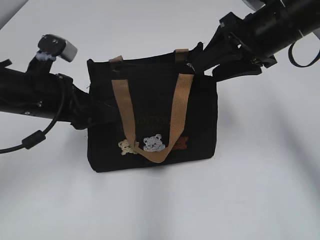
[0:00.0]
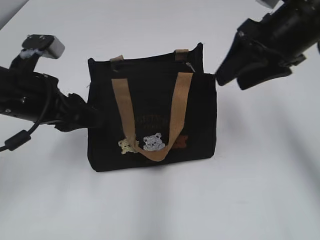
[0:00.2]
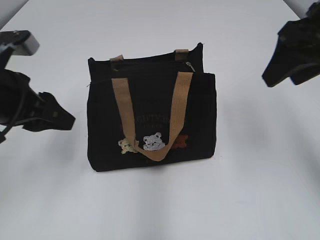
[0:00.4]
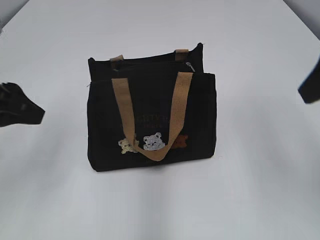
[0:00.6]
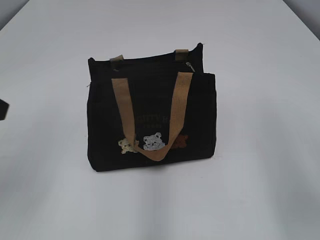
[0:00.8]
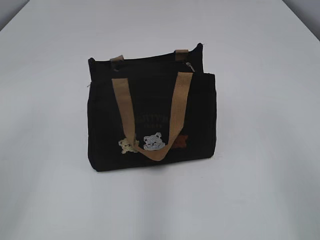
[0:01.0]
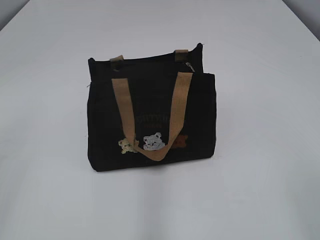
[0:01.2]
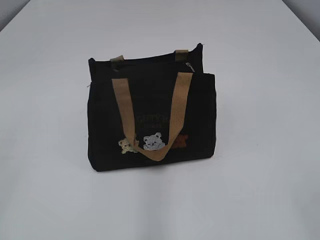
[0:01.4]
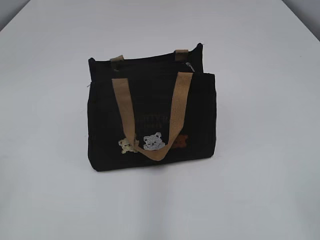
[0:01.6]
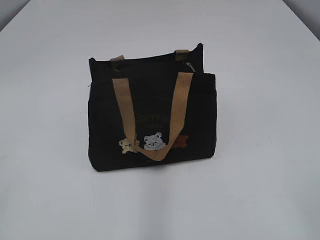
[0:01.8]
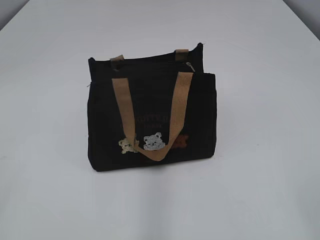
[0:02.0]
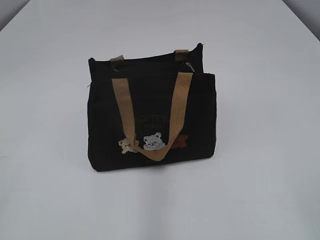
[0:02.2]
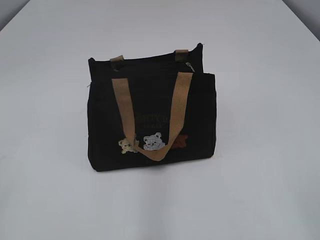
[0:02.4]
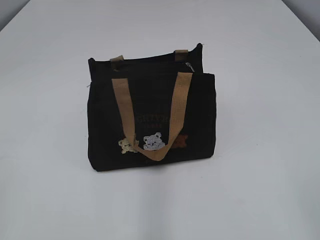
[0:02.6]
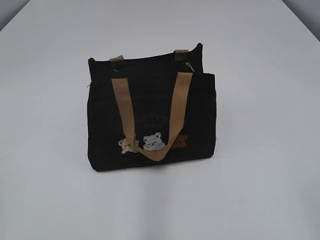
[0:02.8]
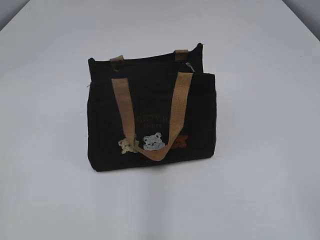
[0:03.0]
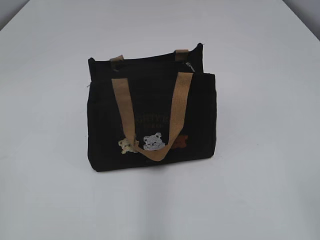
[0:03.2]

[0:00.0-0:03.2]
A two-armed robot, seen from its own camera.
Step, 0:00.0 to 0:00.2: Hold the bag with your left hand.
0:00.0 to 0:01.6: The right gripper is displaced backward by some 35 cm. The left gripper moves backward and to the left, about 30 cm.

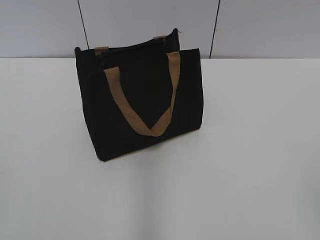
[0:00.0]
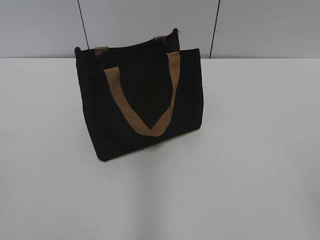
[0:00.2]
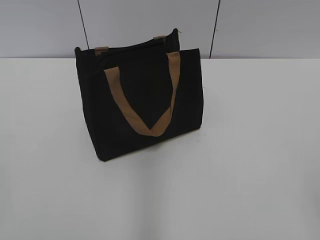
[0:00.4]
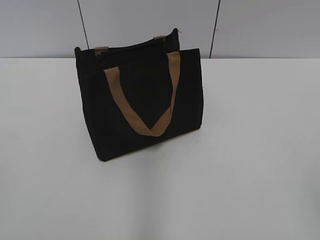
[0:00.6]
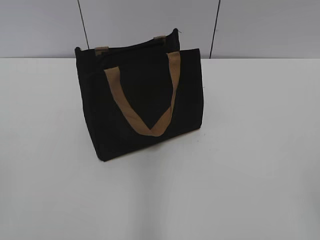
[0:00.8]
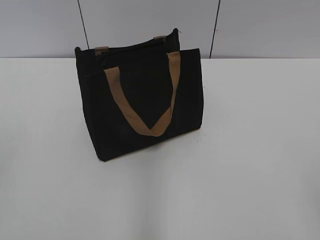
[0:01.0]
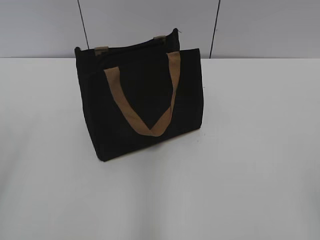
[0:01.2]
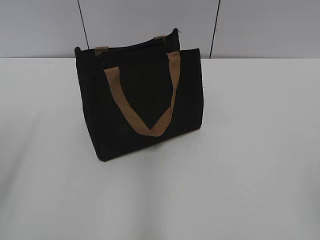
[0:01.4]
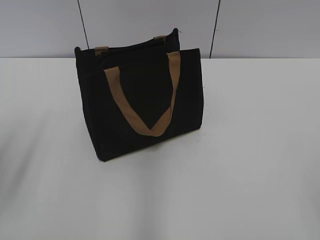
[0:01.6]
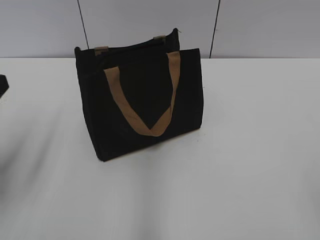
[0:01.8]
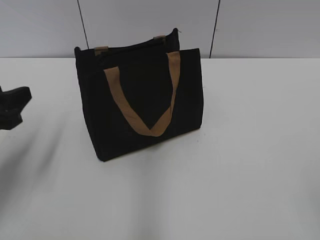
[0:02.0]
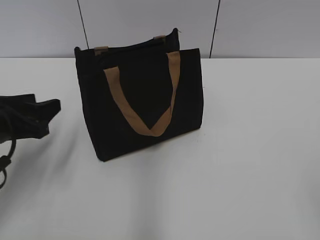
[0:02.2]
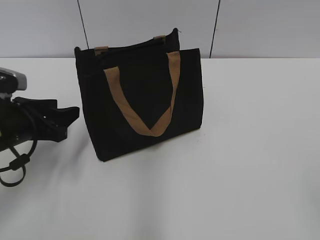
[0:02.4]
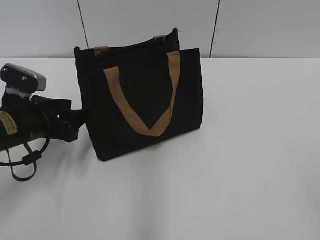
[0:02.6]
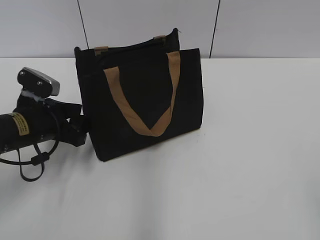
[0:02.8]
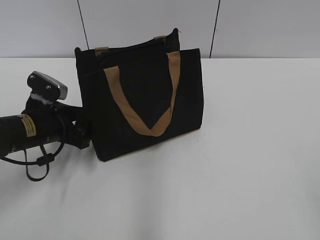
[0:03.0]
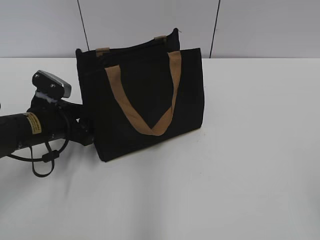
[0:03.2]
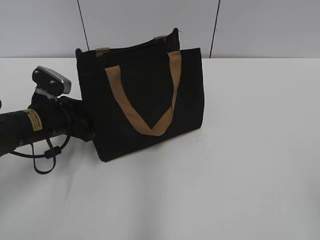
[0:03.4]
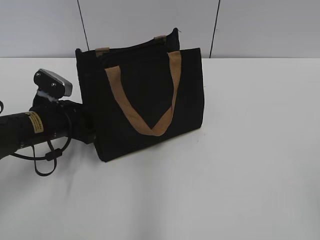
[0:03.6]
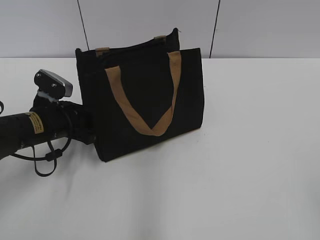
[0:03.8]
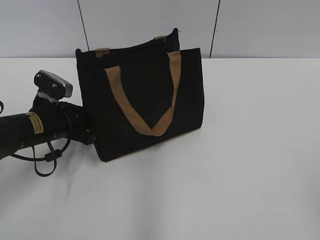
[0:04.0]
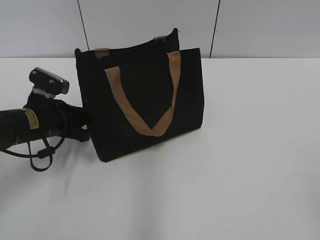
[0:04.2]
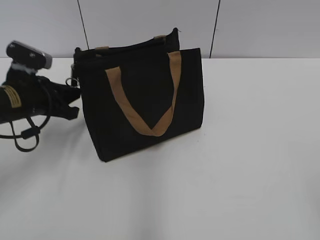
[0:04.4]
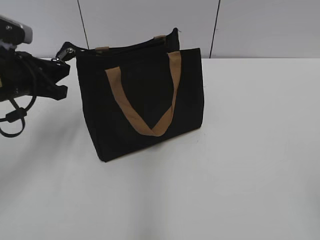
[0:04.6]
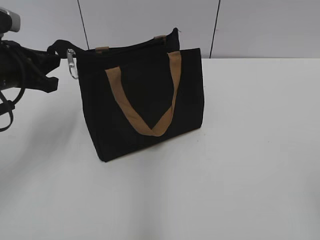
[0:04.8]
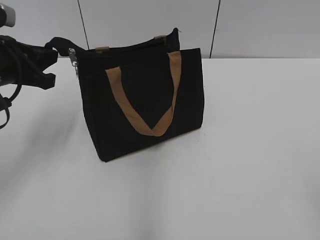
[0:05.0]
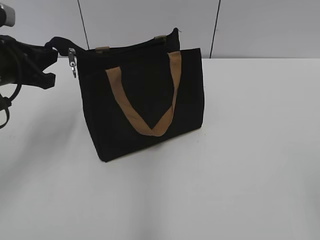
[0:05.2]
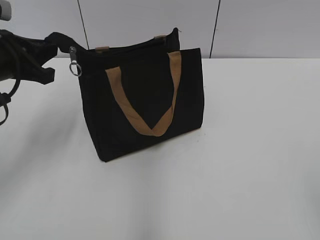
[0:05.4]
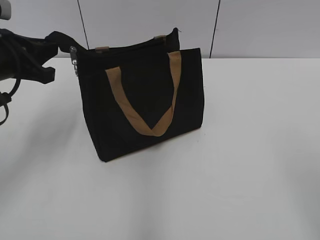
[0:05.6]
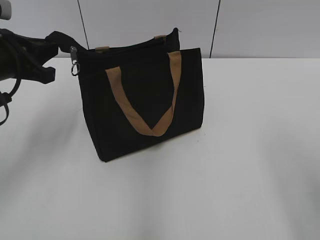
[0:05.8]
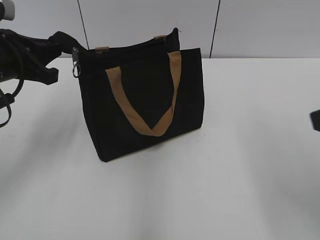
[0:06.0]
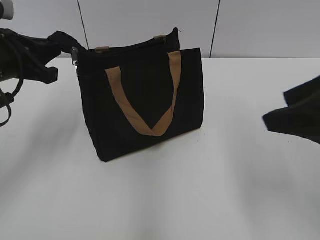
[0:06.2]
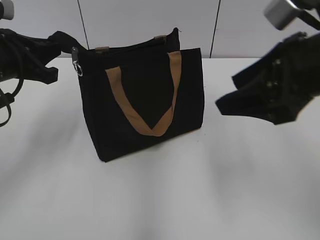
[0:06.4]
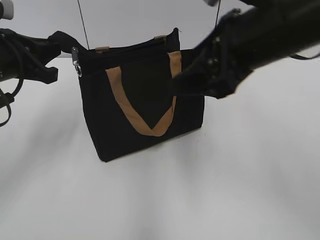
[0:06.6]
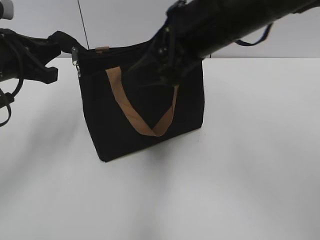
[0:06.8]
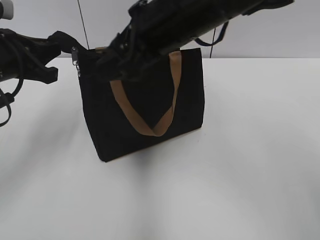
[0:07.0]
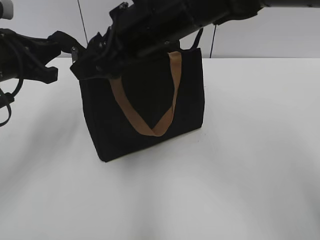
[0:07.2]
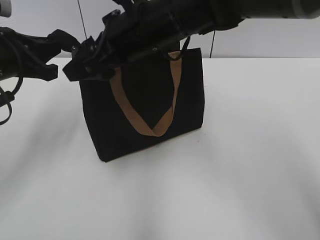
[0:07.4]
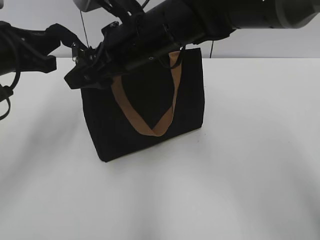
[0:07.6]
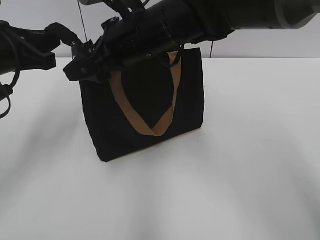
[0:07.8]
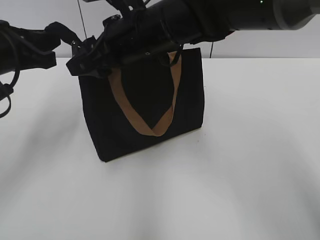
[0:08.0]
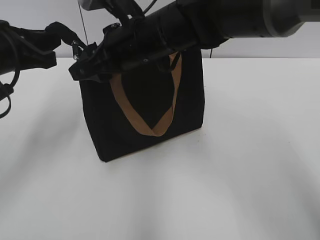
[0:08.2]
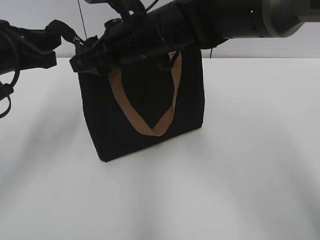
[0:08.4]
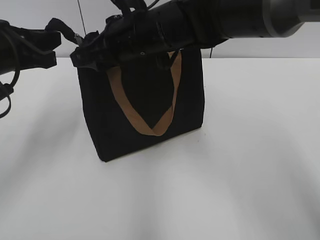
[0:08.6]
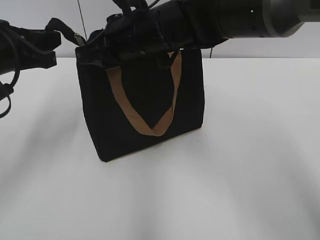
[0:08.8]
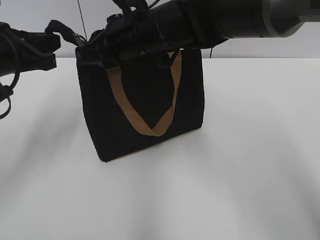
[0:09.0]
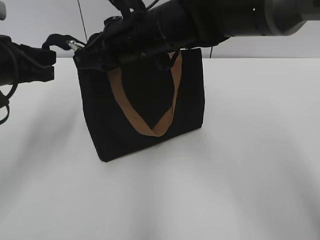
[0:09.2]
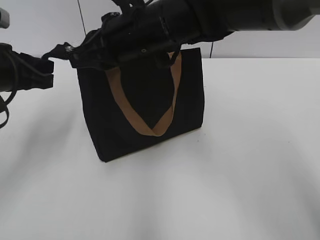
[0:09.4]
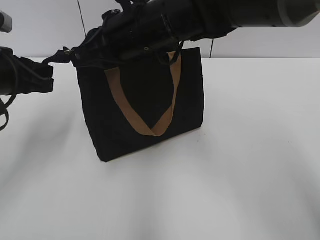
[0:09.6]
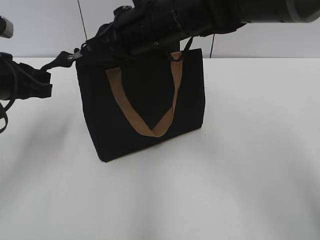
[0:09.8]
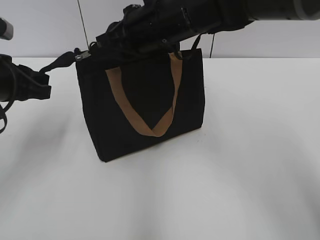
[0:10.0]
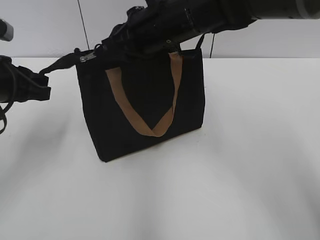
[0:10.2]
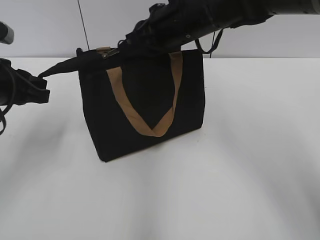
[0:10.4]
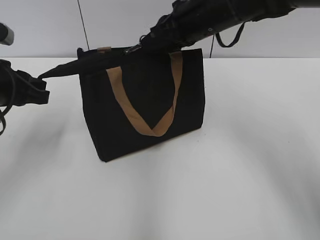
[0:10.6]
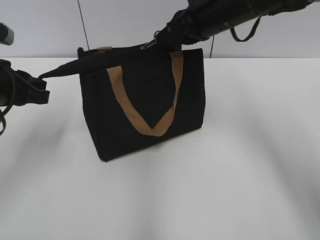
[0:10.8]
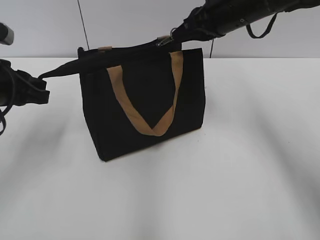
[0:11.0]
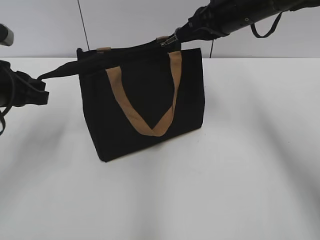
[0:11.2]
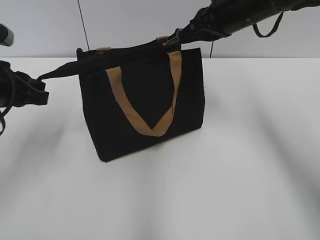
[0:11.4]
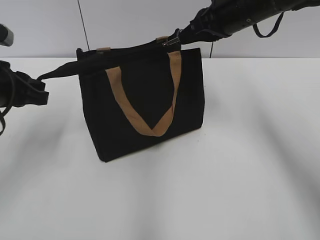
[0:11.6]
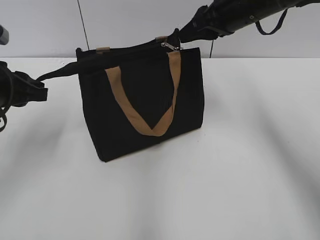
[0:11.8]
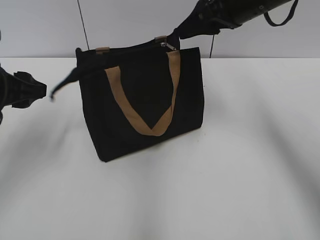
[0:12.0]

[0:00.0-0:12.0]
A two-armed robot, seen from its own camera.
Step, 0:00.0 to 0:11.6: Zip up the bag with your right hand.
0:01.6 to 0:03.0: The left gripper goes about 20 cm forward, downward and to the right.
0:03.0 to 0:04.4: The left gripper closes.
0:04.4 to 0:06.0: The left gripper moves upward, some 10 cm. Meanwhile the right gripper goes some 15 cm forward.
0:06.0 to 0:07.6: The right gripper travels to the left and forward by about 35 cm.
0:07.6 to 0:09.0: The right gripper closes its fingers.
0:09.0 to 0:10.4: The right gripper moves to the right, roughly 5 cm.
0:10.4 to 0:12.0: The left gripper opens. The right gripper is displaced to the right by approximately 10 cm, and opens.

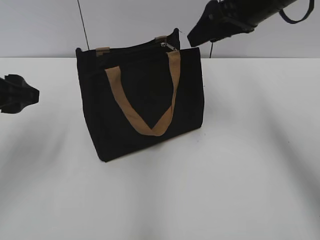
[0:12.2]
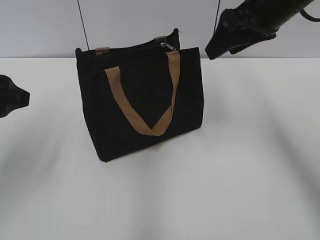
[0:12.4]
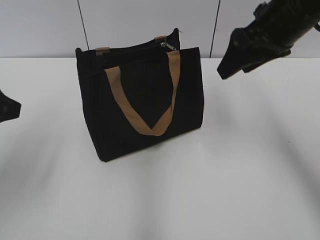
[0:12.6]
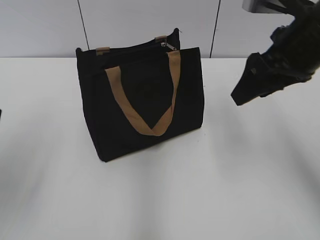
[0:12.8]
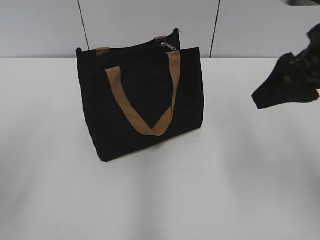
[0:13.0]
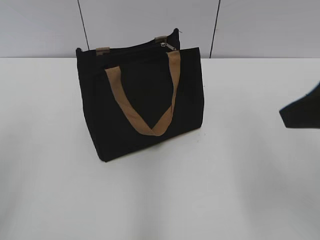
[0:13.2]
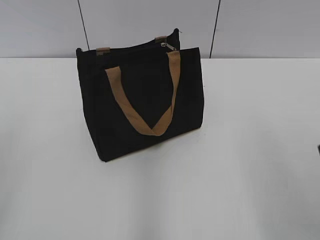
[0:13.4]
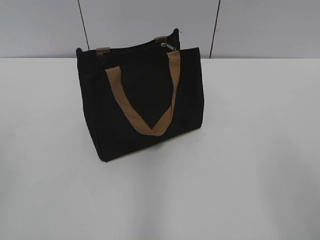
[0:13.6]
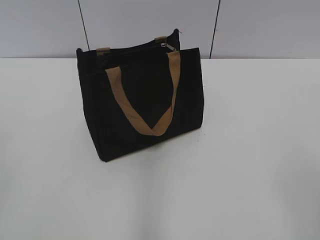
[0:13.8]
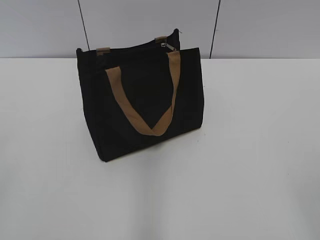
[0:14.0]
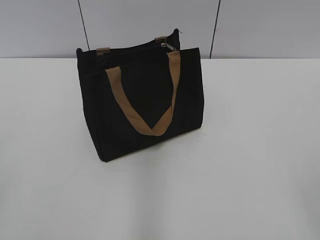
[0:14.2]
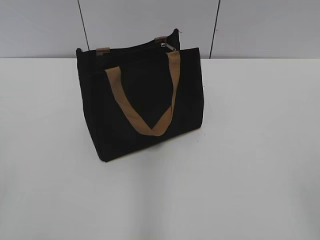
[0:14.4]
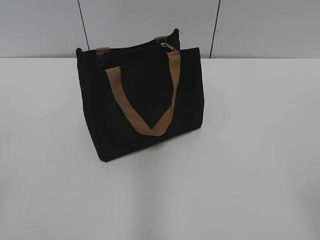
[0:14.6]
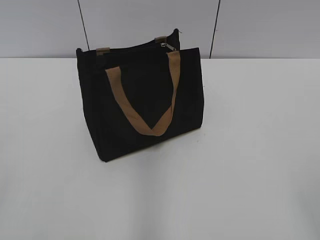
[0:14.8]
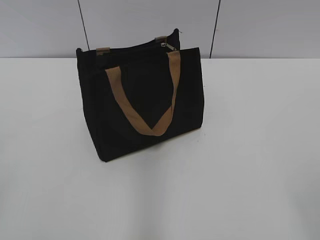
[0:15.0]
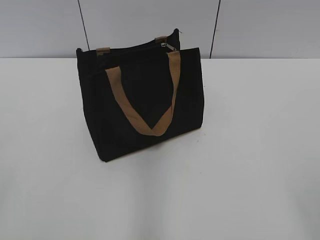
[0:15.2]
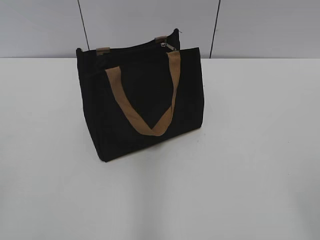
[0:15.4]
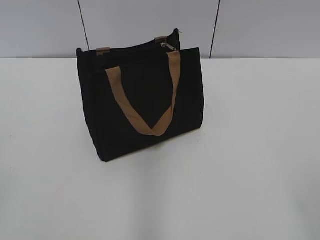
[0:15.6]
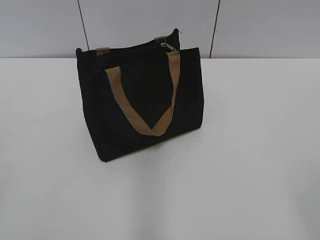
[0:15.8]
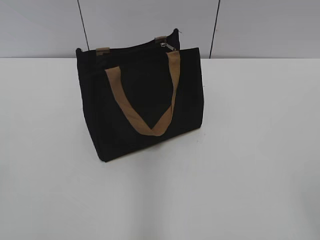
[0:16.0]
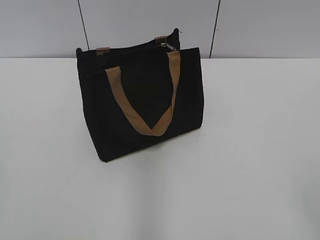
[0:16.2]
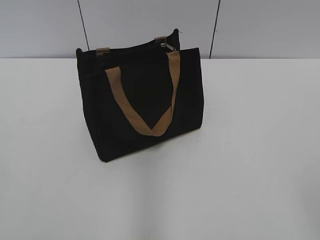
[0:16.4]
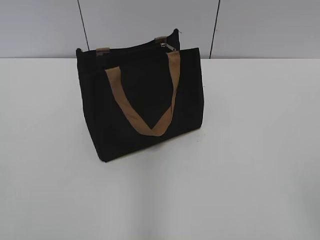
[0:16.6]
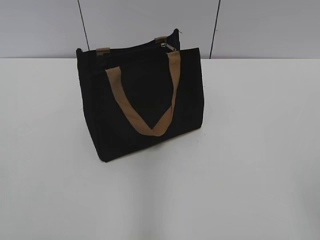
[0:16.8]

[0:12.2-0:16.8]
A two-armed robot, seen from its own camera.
0:12.2 to 0:13.8: The left gripper is displaced backward by about 20 cm, while the right gripper moves backward, roughly 35 cm.

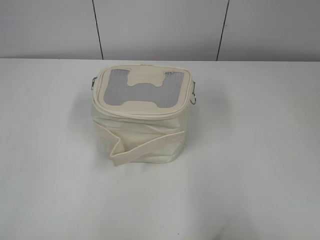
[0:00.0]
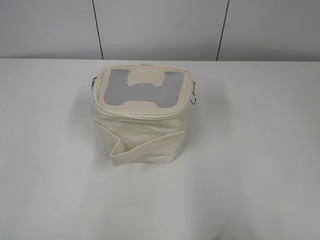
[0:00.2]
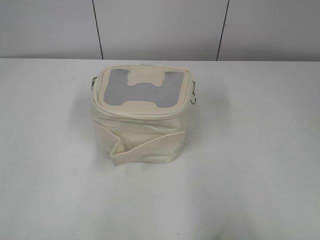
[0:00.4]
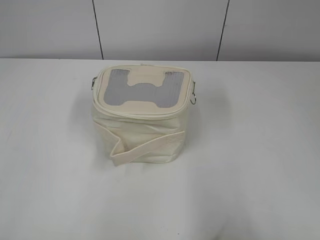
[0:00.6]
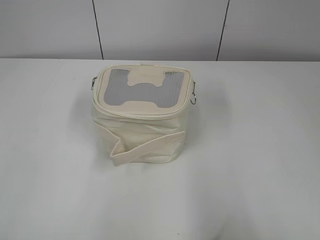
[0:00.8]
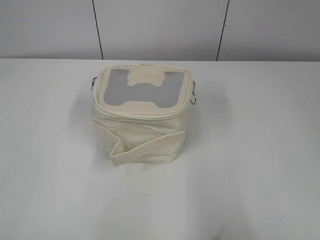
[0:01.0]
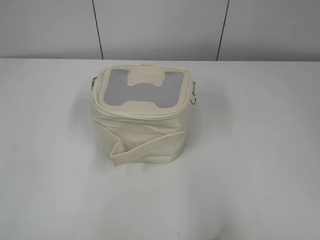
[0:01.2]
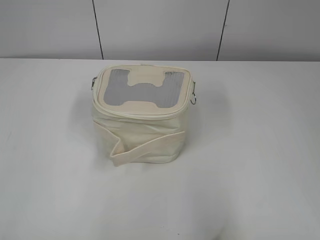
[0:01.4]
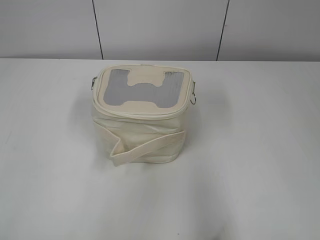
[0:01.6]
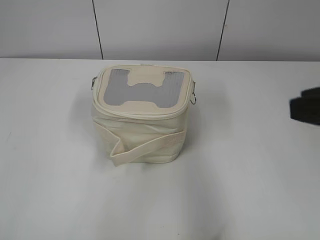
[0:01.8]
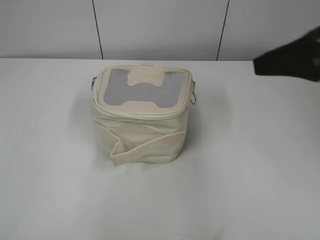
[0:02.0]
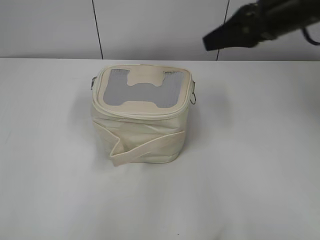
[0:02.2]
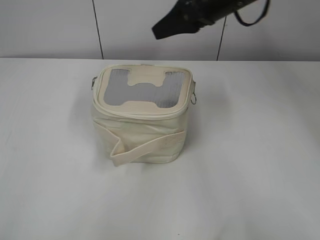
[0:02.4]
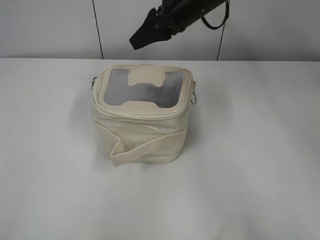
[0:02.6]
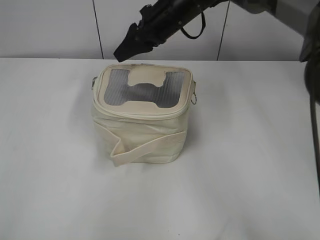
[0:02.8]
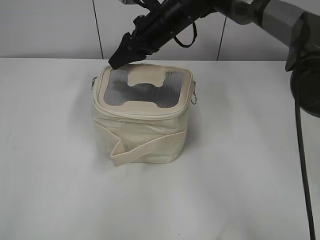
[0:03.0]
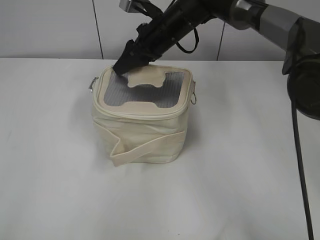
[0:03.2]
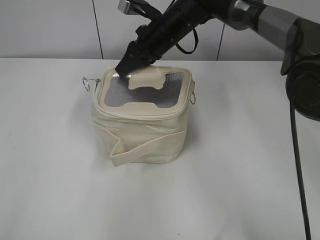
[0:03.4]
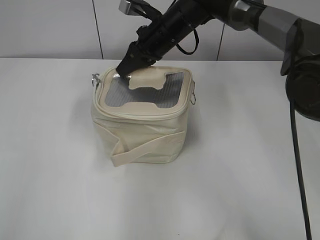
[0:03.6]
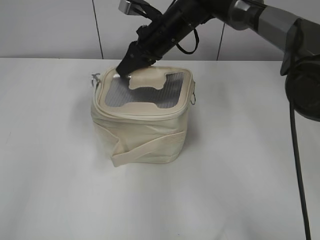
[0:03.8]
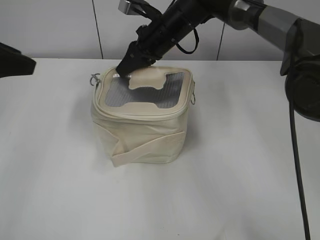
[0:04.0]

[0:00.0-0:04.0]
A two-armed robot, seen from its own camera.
0:01.4 to 0:02.6: The right gripper moves forward and to the left, approximately 50 cm.
0:02.6 to 0:04.0: The left gripper goes some 25 cm forward, and opens. Meanwhile the right gripper heads downward and to the left, covering approximately 10 cm, and closes up.
